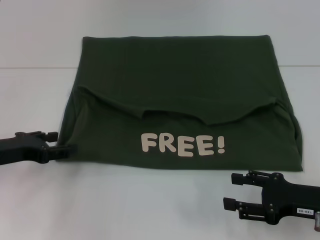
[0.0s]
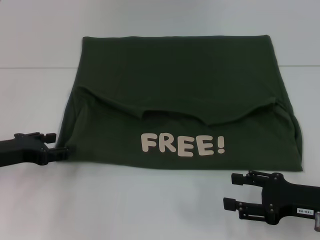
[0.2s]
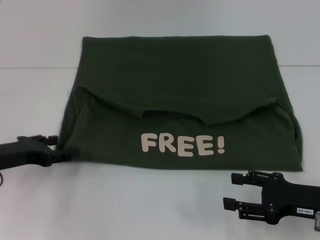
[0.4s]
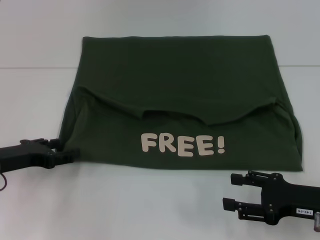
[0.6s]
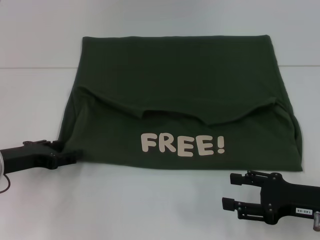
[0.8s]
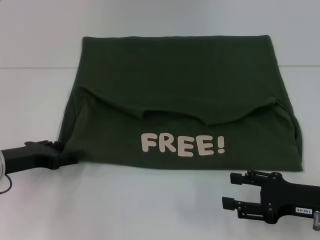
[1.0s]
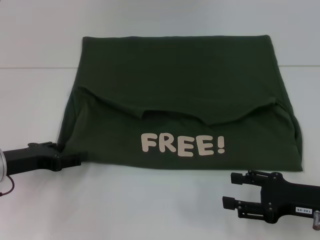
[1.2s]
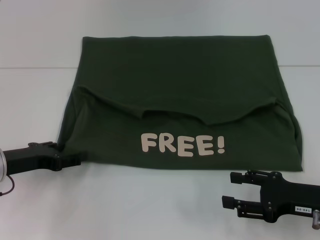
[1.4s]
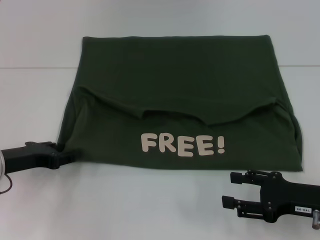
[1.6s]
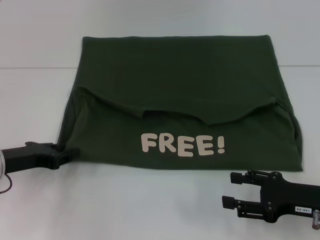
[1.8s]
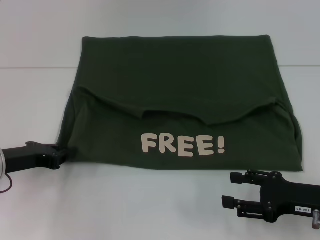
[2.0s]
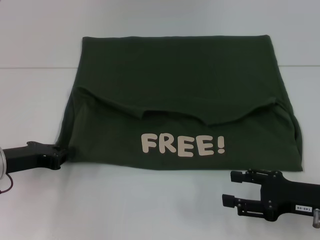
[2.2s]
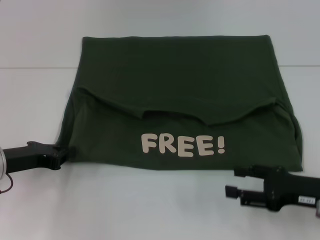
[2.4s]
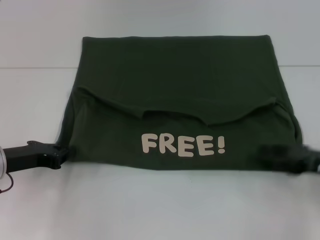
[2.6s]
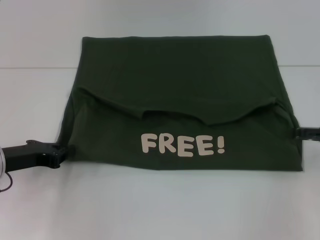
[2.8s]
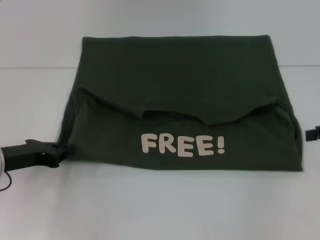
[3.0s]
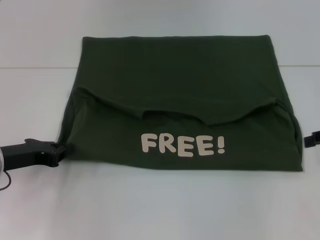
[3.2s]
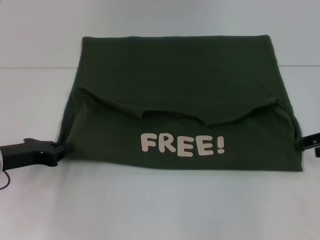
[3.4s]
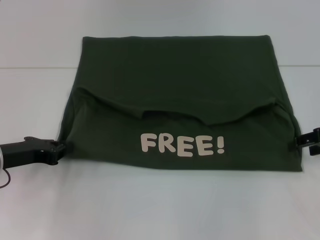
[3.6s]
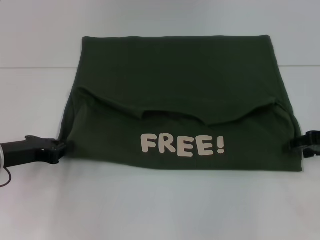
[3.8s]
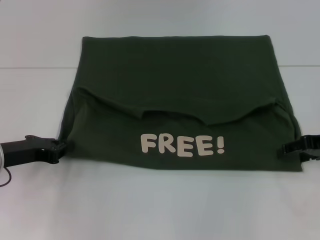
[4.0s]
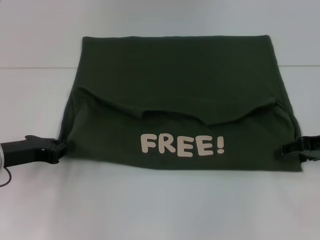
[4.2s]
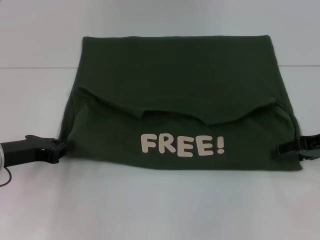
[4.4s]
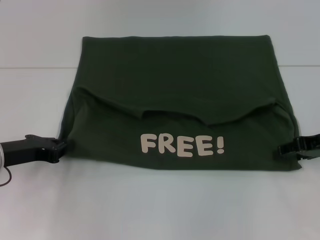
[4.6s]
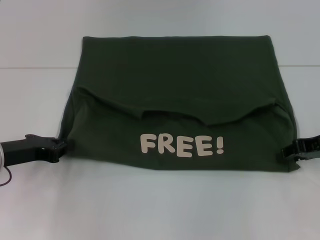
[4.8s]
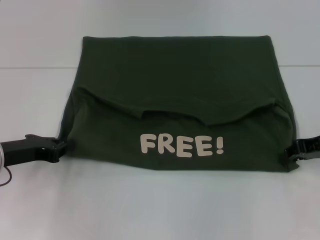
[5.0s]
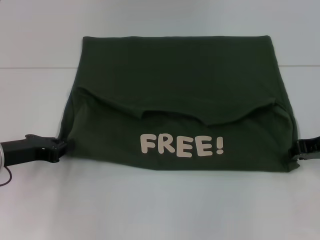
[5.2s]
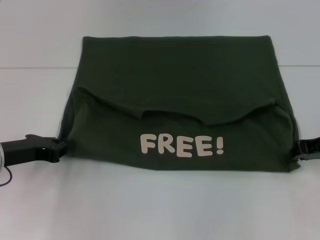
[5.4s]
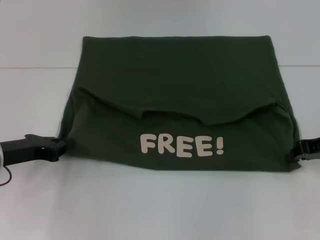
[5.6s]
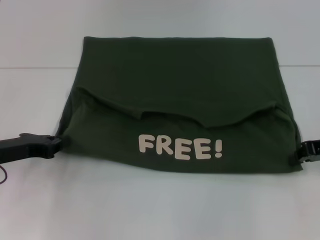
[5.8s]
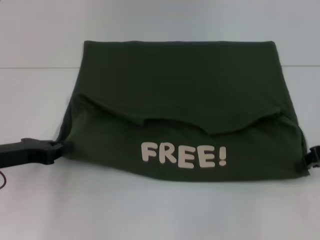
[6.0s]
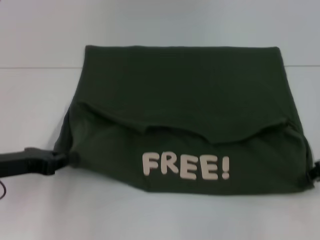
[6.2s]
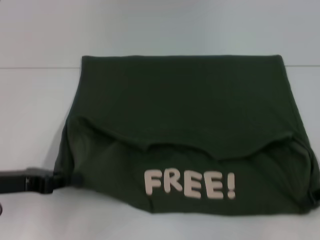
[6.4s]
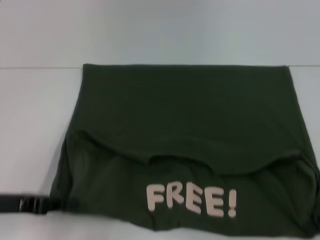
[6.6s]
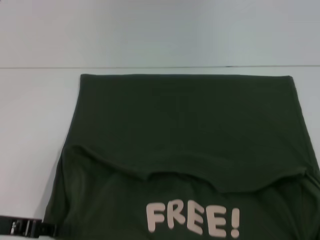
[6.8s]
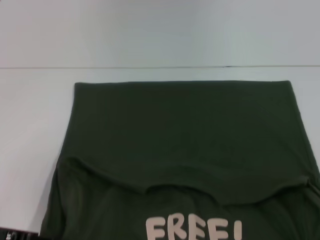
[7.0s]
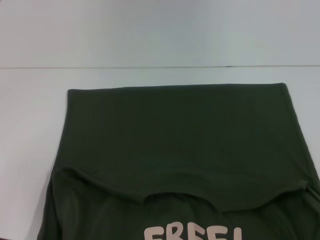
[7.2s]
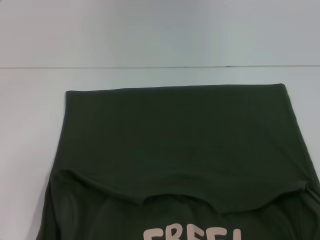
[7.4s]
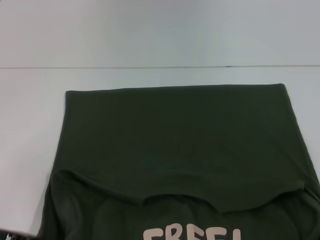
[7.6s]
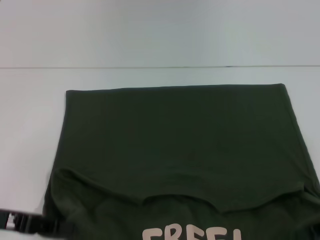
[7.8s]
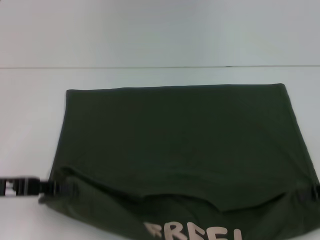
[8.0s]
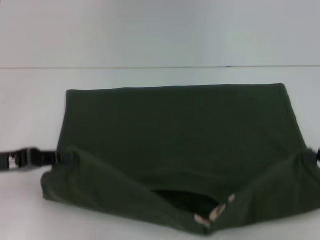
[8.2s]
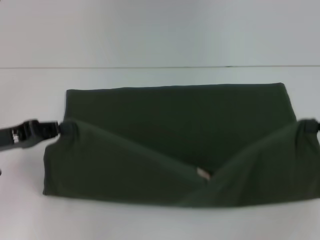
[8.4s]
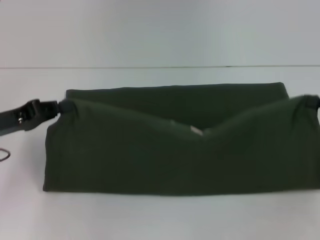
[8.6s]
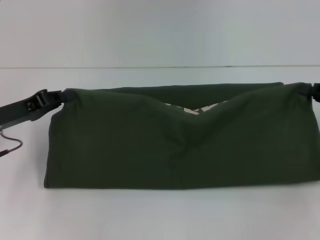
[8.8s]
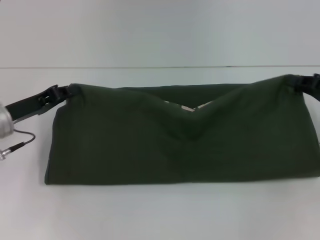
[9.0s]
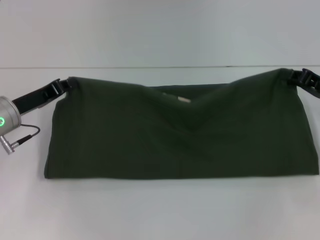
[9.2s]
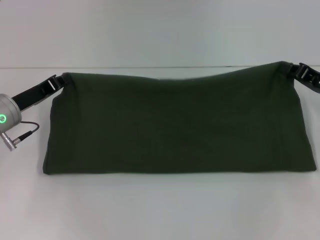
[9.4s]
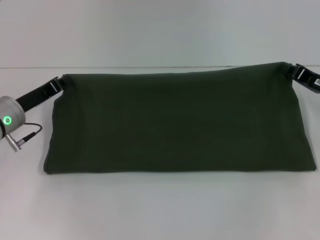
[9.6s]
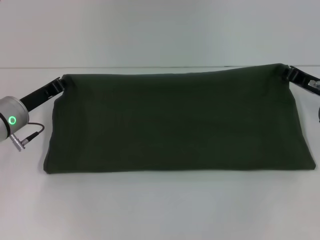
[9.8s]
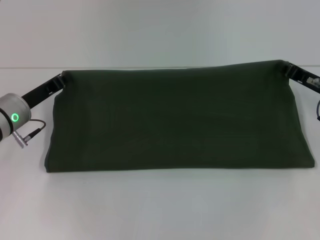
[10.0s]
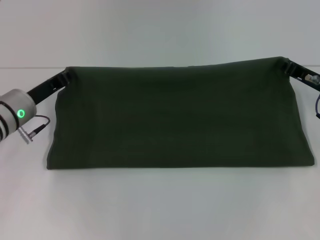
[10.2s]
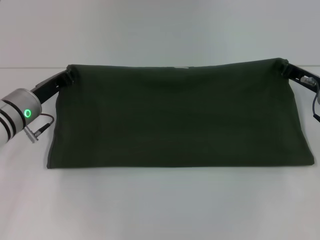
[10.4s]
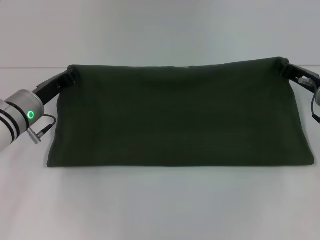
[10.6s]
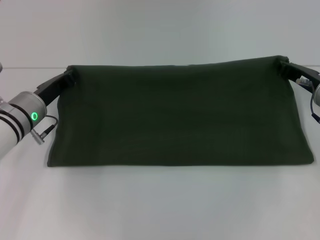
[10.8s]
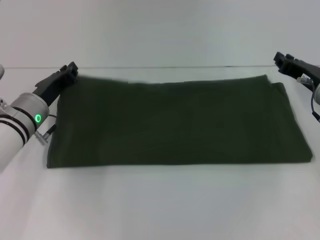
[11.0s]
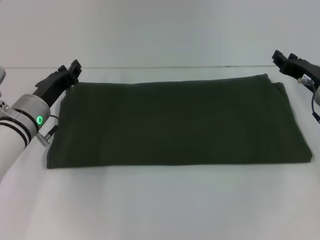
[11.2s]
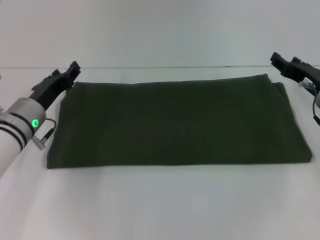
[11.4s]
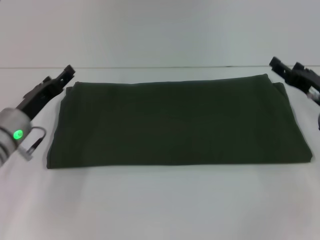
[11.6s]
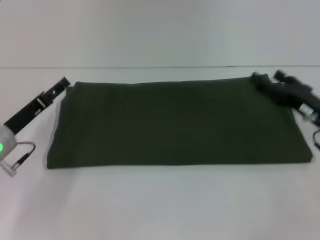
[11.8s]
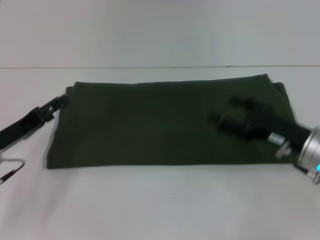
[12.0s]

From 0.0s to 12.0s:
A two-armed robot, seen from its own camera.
Step, from 0.0s to 7.4s: Pull the clothes with your left hand.
Step, from 0.0s to 7.4s: Pull the clothes with your right hand.
Step, from 7.6s to 11.4s: Fold the clothes with your right hand.
From 0.0s to 1.6s: The grippers make only small movements.
From 1.6s to 3.0s: The right gripper goes about 15 cm upward, to the right and forward. Meanwhile the left gripper closes its fingers.
From 3.0s to 4.4s: The right gripper shifts approximately 5 cm to the left.
From 4.4s to 6.0s: The right gripper closes up.
From 6.0s to 7.6s: Both grippers travel together backward, roughly 10 cm.
From 7.6s to 9.0s: The grippers both shift forward by some 10 cm.
From 9.0s to 10.4s: The right gripper heads to the left, covering about 5 cm. Meanwhile the left gripper ends up about 5 cm from where it was.
From 10.4s to 12.0s: The two grippers go approximately 10 cm backward. The right gripper opens up. Meanwhile the left gripper opens up.

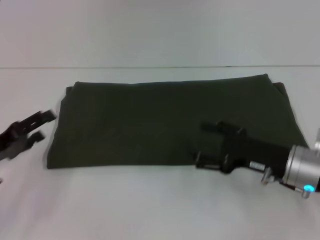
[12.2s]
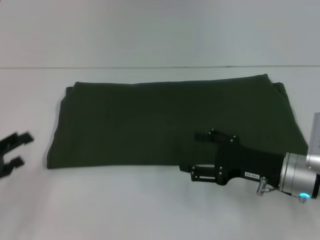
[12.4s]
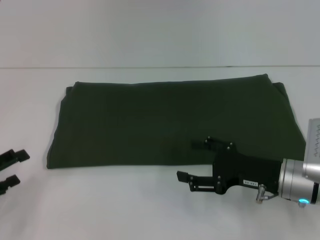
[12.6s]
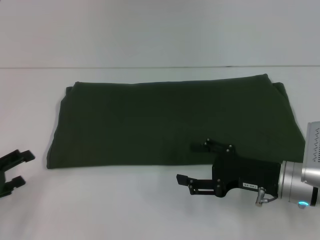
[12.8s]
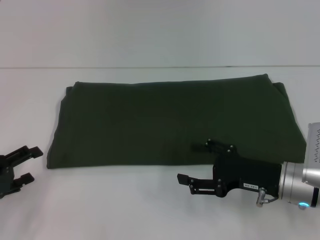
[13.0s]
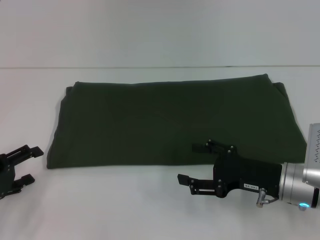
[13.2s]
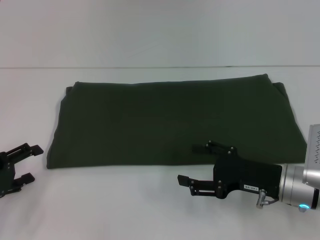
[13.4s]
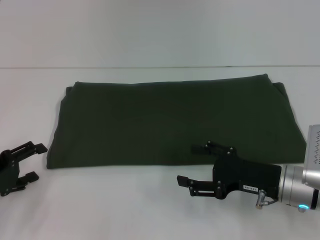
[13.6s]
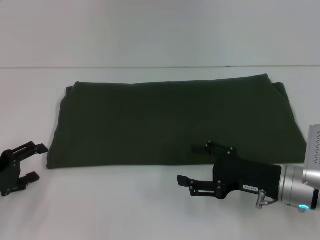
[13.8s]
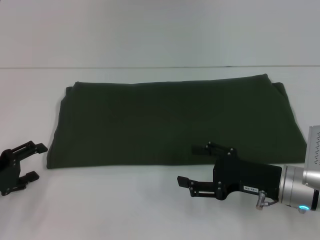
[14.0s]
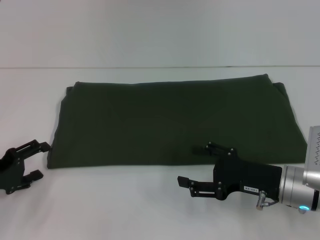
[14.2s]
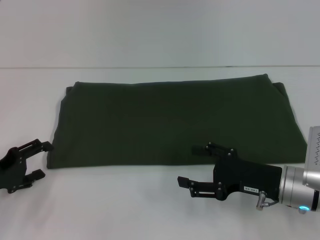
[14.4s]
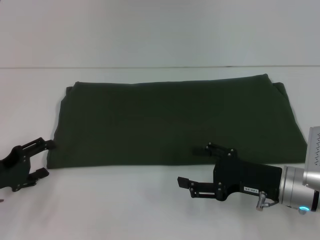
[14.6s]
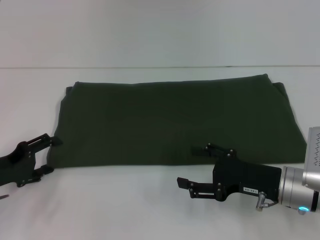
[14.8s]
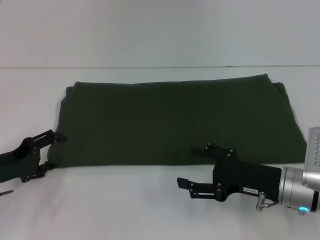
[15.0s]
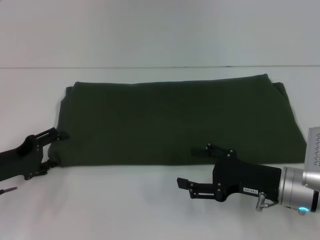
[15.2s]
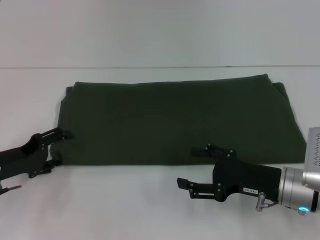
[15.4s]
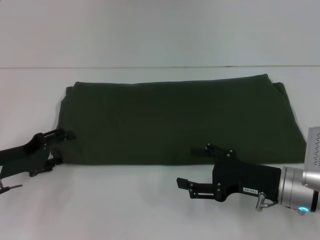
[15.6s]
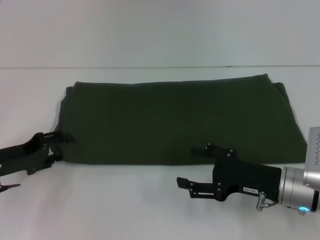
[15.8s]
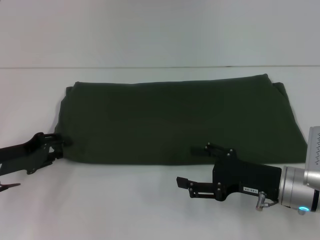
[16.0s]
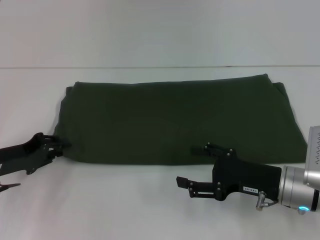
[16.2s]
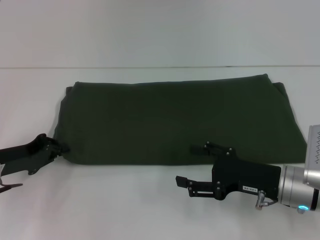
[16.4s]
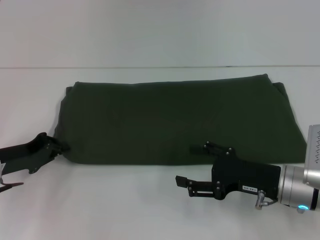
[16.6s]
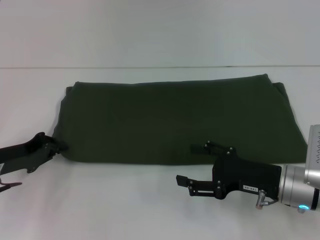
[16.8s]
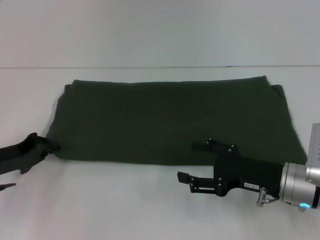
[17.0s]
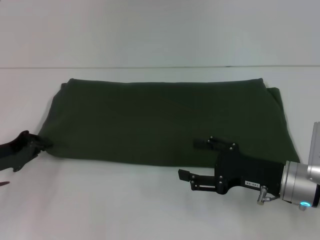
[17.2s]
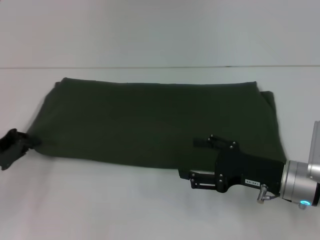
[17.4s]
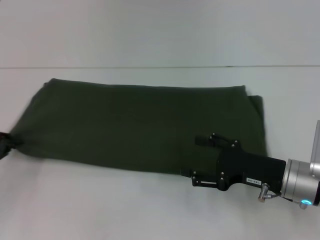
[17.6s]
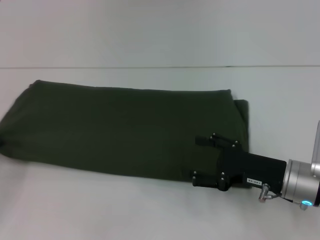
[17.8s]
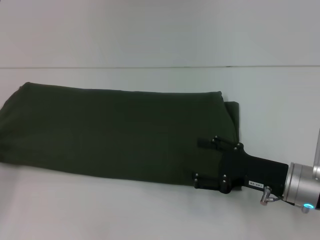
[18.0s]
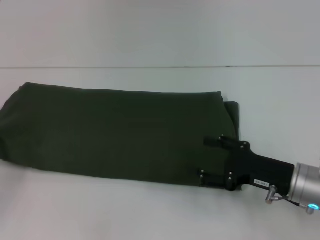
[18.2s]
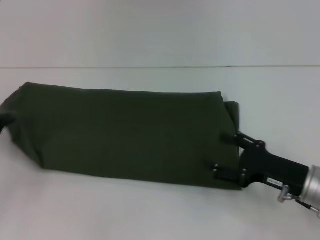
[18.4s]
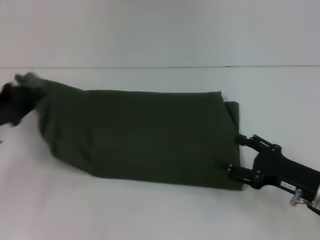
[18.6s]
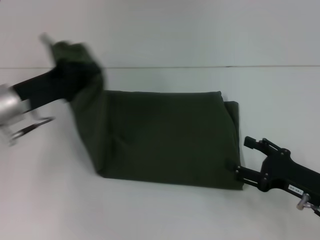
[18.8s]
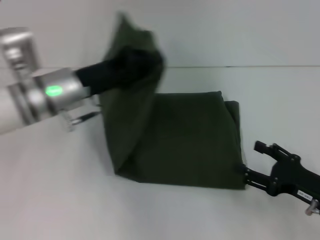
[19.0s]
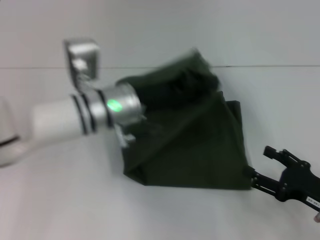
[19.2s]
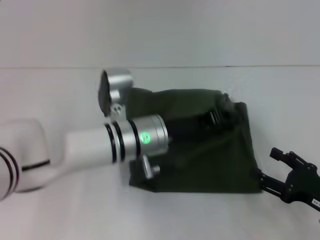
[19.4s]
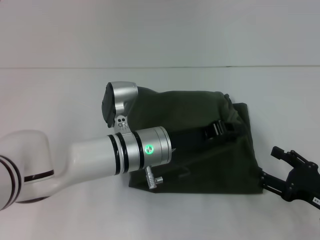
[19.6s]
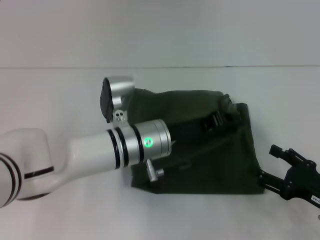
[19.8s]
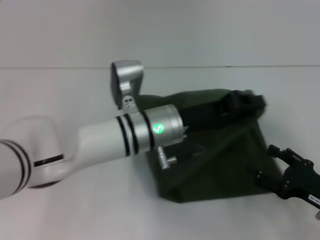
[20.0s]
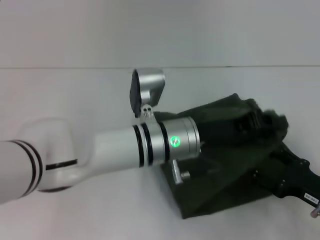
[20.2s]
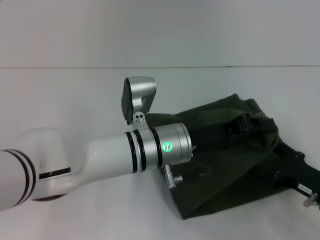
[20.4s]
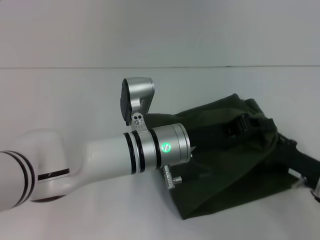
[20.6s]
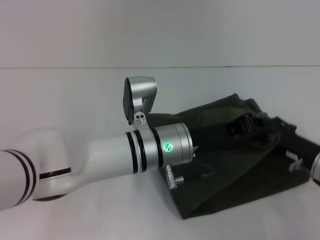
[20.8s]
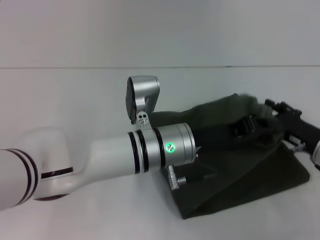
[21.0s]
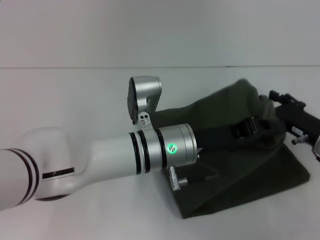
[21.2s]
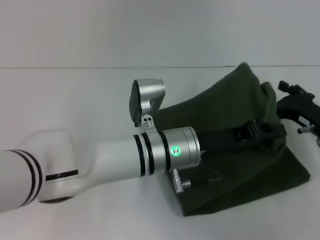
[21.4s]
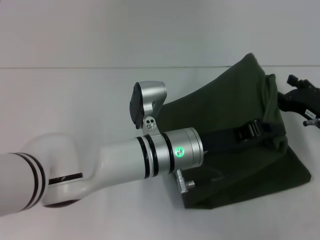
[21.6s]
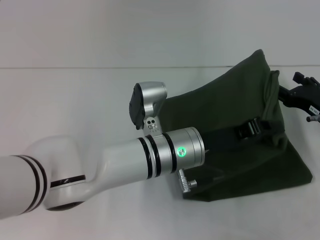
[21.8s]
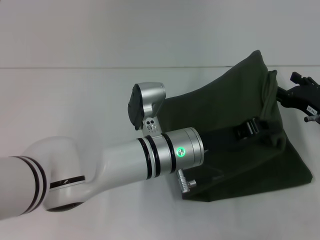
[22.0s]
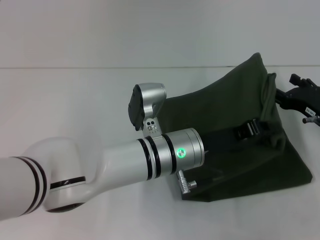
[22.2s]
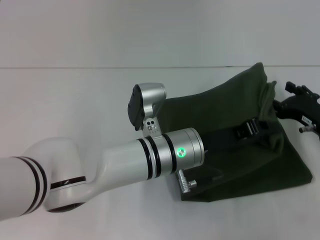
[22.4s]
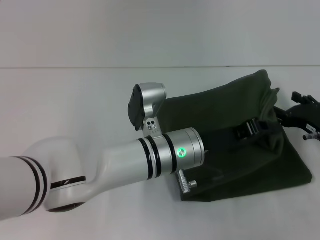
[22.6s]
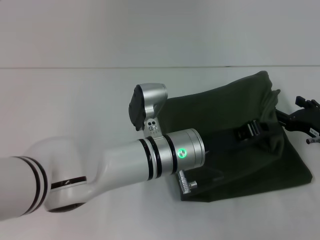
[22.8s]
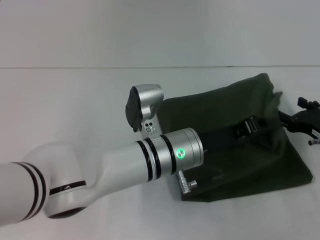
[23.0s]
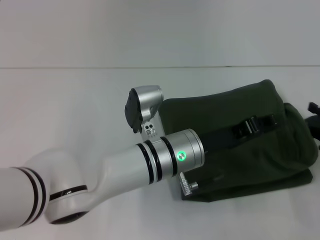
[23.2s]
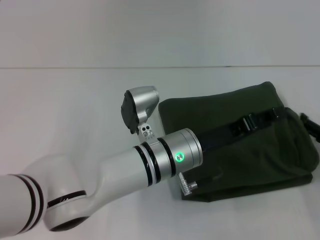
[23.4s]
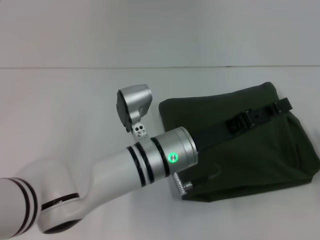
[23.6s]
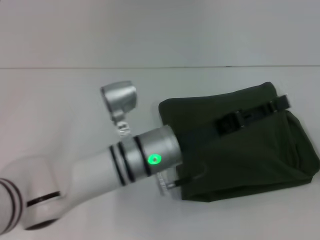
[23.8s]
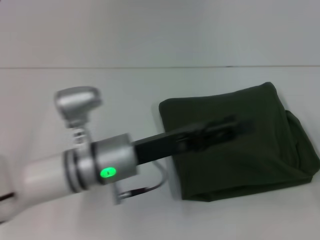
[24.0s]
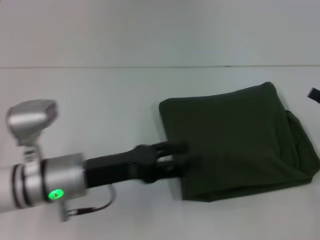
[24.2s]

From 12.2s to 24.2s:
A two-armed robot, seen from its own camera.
Step, from 12.2s to 24.2s: Fold the clothes with your left hand.
From 13.8s to 15.2s: There are only small adjustments of the grippers.
From 15.2s to 16.6s: The left gripper closes up.
From 16.6s to 18.2s: The left gripper travels to the left by roughly 10 cm.
From 18.2s to 19.8s: The right gripper moves to the right and backward, approximately 10 cm, while the left gripper travels to the right by about 35 cm.
From 19.8s to 21.2s: The right gripper goes some 10 cm forward.
From 21.2s to 22.6s: The grippers move only a little.
From 22.6s to 24.2s: The left gripper is displaced to the left by approximately 15 cm, and opens up; the right gripper shifts about 10 cm to the right and upward.
